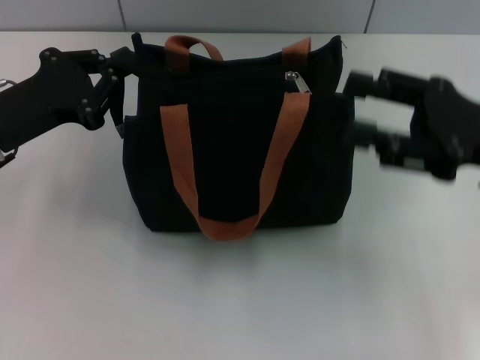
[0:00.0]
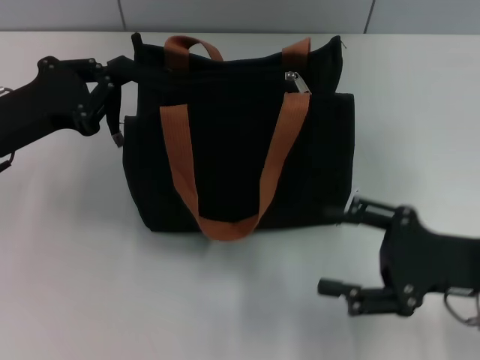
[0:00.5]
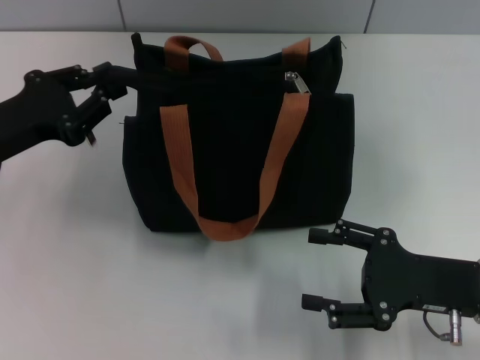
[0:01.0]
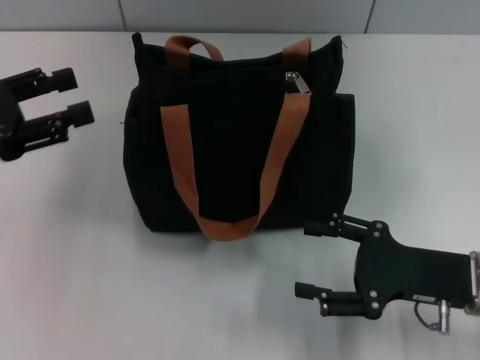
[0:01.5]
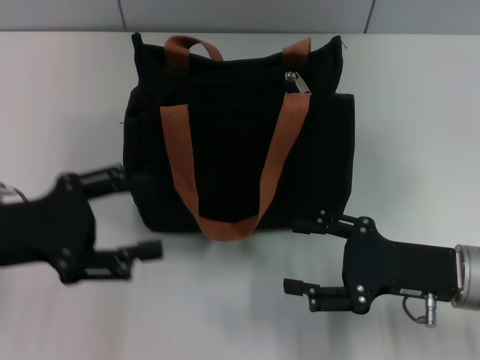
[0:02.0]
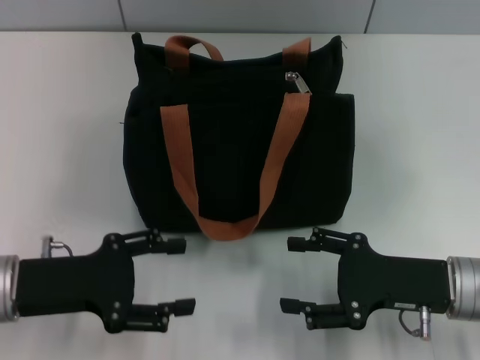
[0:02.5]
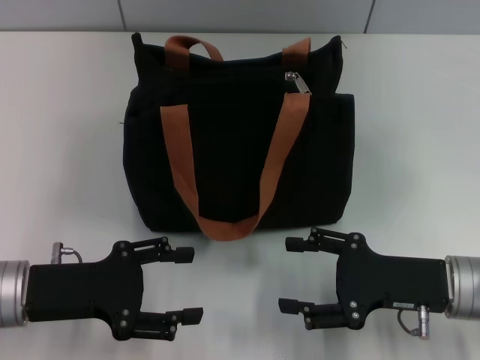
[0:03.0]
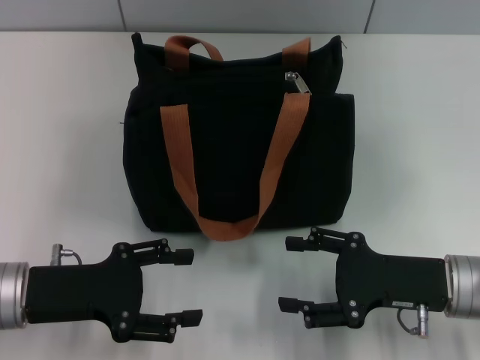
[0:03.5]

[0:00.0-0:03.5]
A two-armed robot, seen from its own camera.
Step, 0:00.0 to 0:01.0: Grab the zipper with your left hand.
0:00.0 to 0:02.0: The right gripper is displaced downward by approximately 10 cm, and opens. Meanwhile the left gripper is displaced backward by approximately 5 cm, and opens up.
0:02.0 to 0:03.5: The left gripper travels downward by some 5 cm.

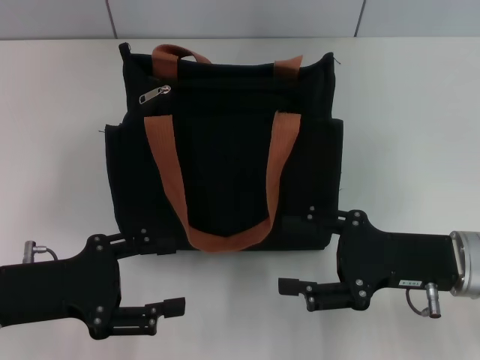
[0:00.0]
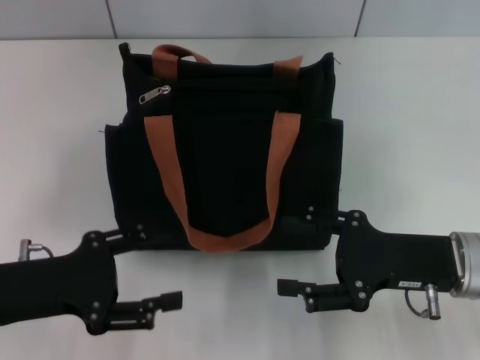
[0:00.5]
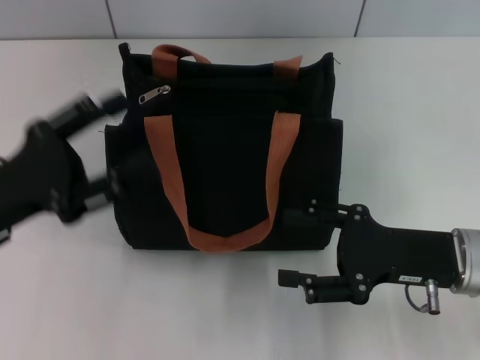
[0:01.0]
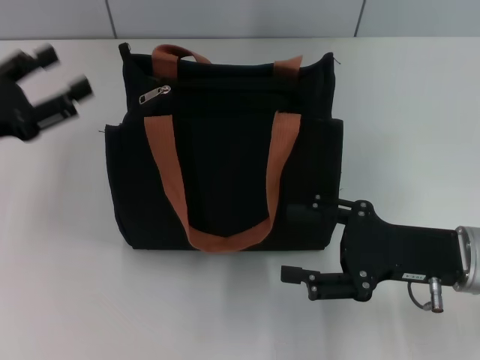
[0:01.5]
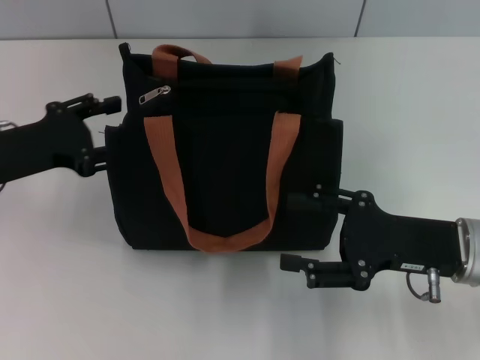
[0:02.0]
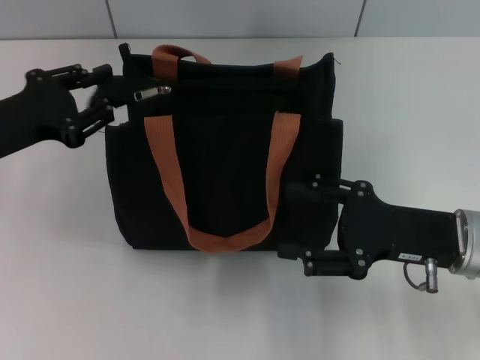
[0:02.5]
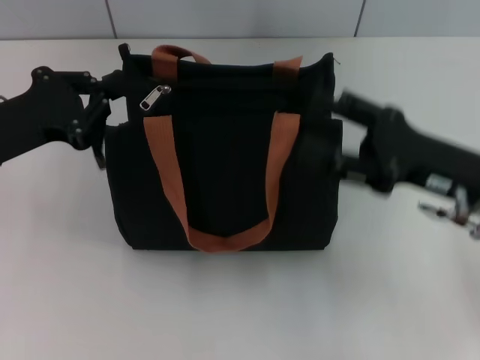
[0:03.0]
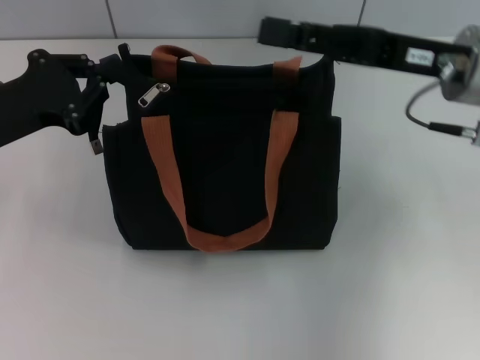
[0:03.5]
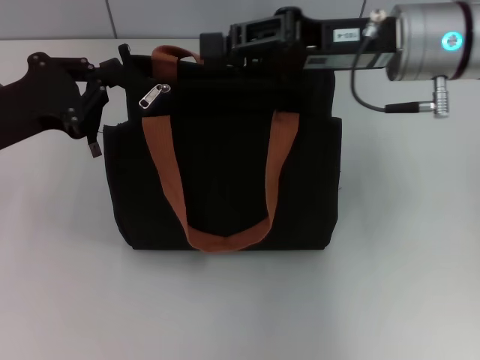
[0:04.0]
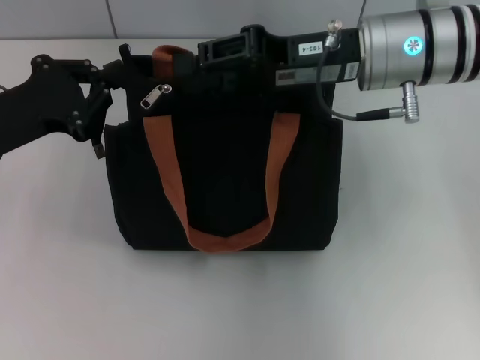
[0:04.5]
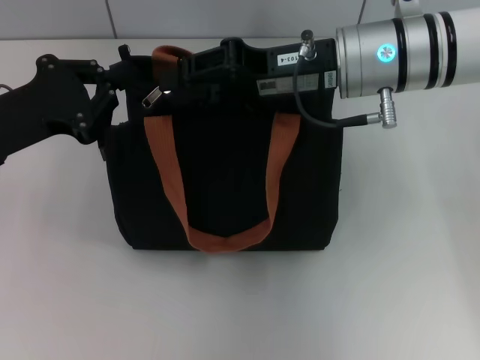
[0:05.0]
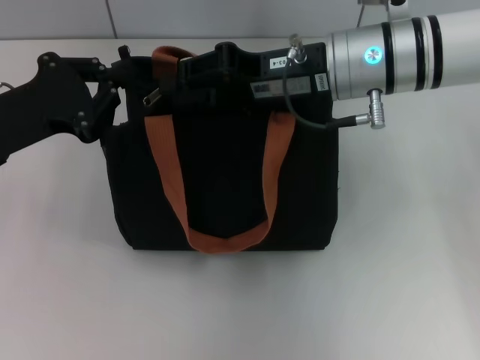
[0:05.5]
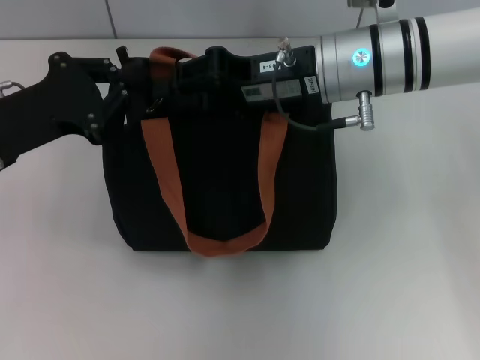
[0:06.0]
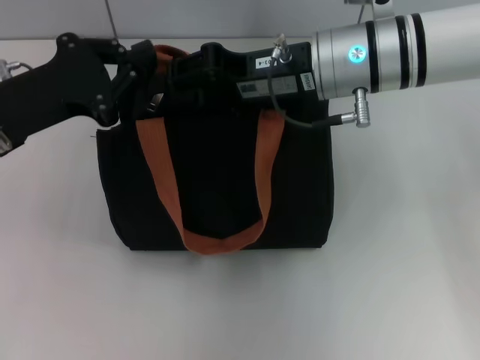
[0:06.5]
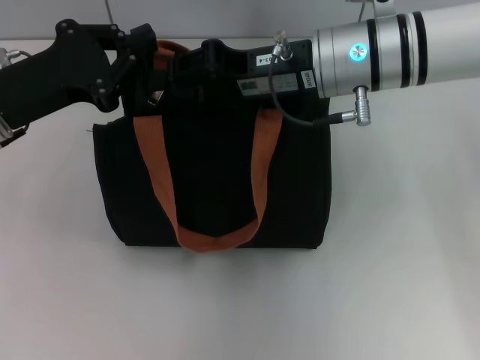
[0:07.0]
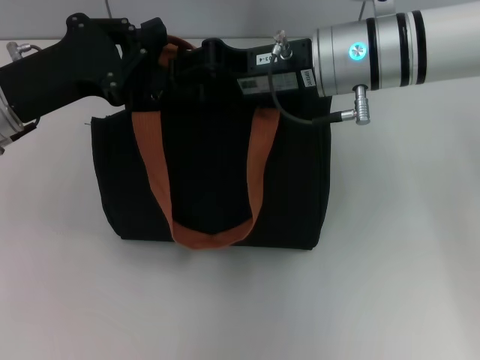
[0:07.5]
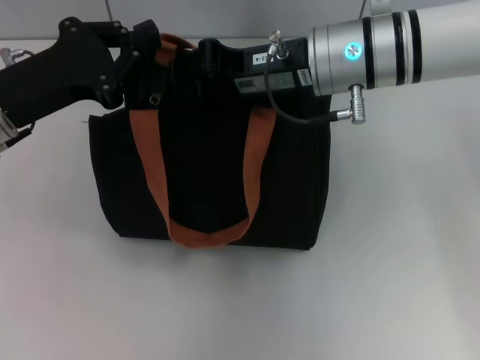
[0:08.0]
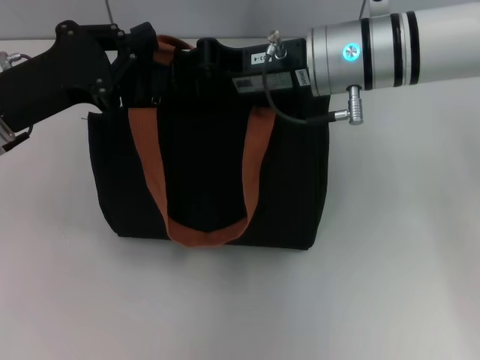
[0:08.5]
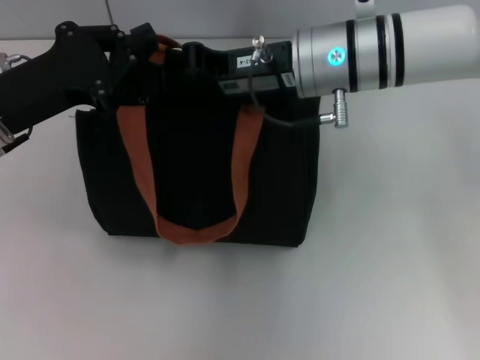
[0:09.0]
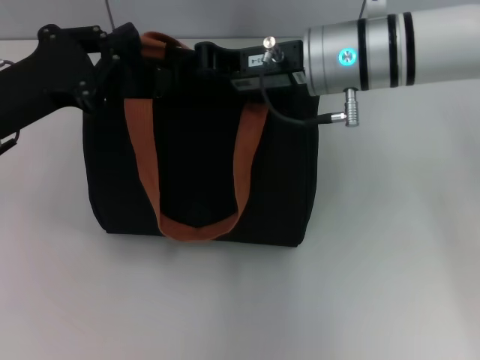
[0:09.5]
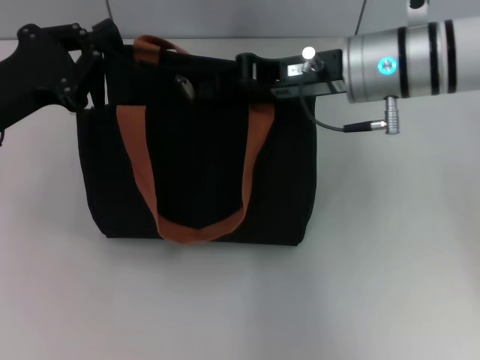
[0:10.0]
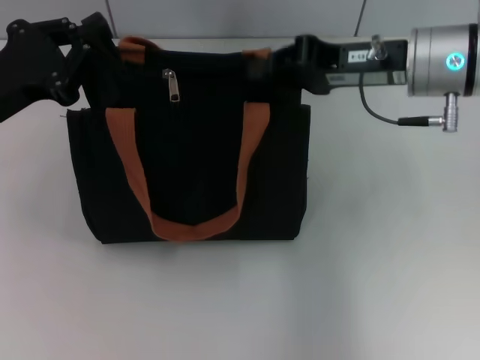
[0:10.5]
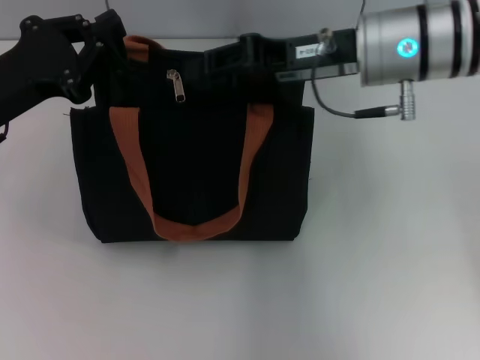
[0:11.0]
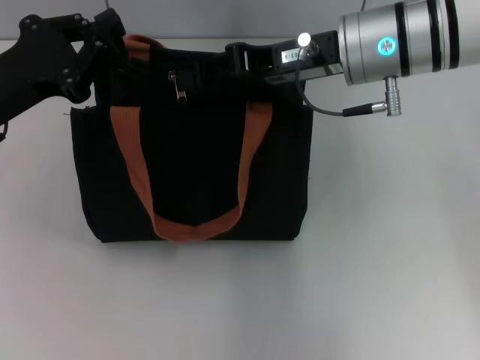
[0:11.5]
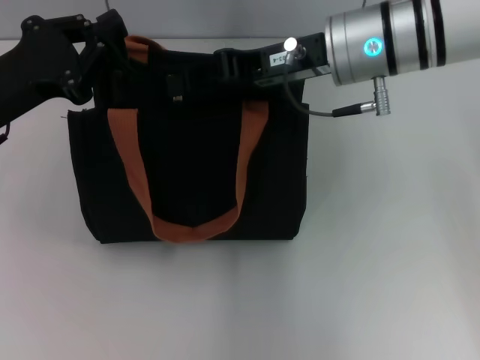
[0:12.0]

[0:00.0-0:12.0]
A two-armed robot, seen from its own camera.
0:00.0 to 0:02.0: The left gripper heads forward, covering approximately 10 cm.
0:02.0 to 0:04.0: The right gripper is displaced upward, forward and to the left by approximately 20 cm, and closes. The left gripper closes up.
0:04.0 to 0:06.0: The right gripper travels to the left by about 5 cm.
0:06.0 to 0:10.0: The grippers move only a little.
0:10.0 to 0:12.0: The right gripper opens.

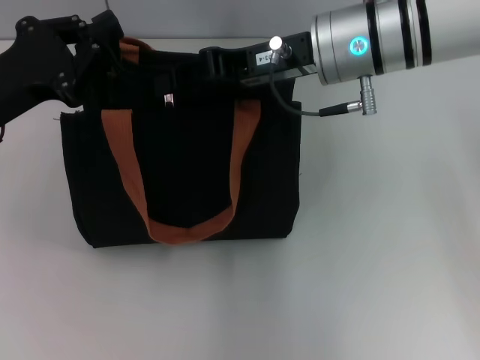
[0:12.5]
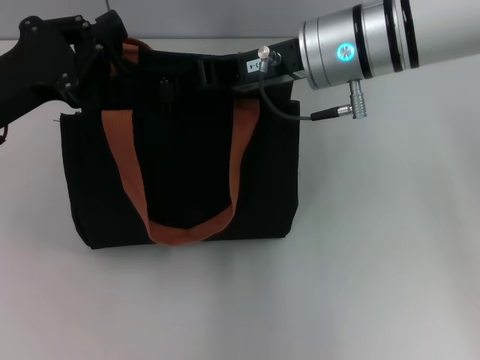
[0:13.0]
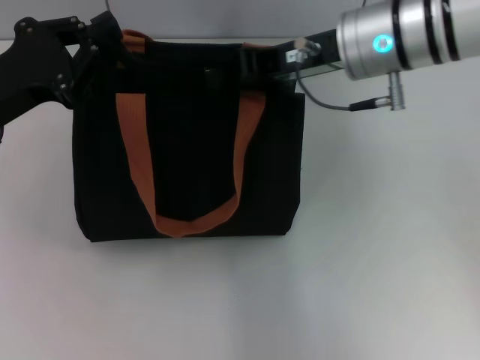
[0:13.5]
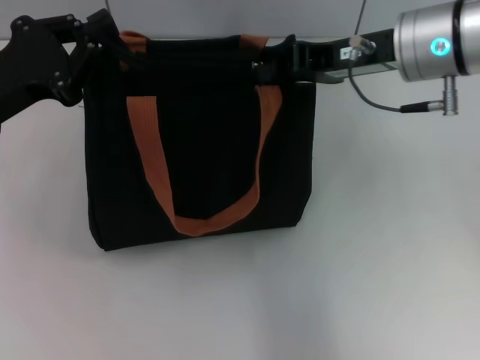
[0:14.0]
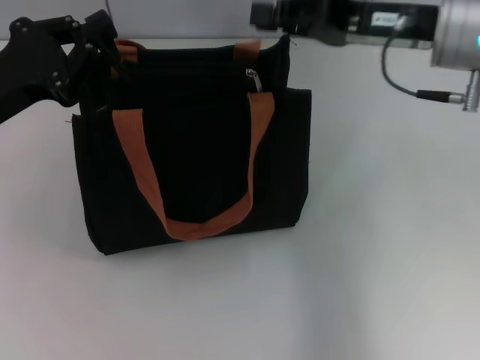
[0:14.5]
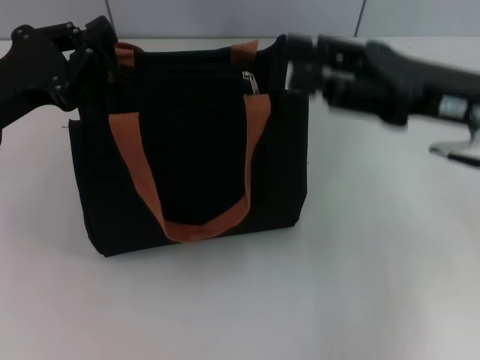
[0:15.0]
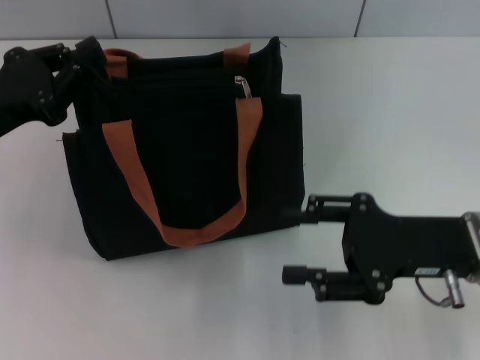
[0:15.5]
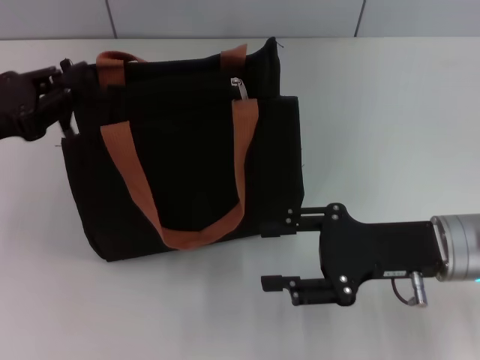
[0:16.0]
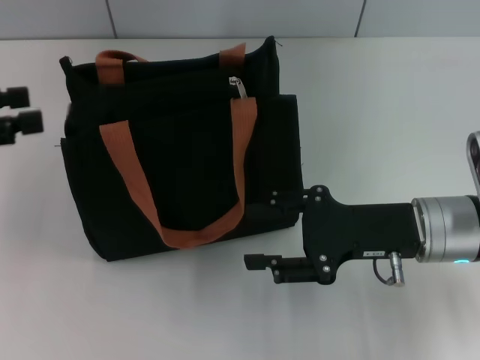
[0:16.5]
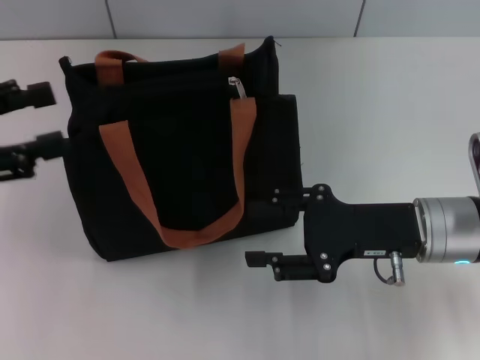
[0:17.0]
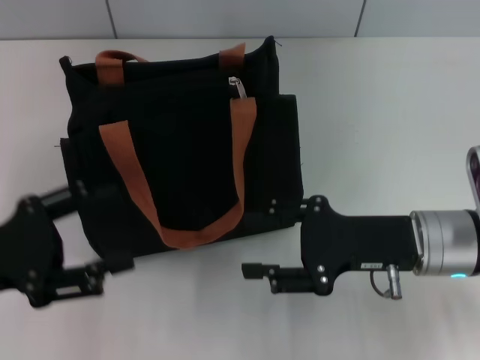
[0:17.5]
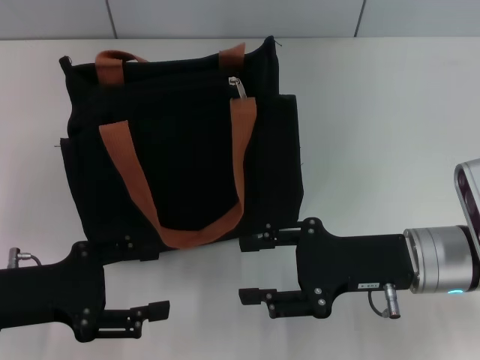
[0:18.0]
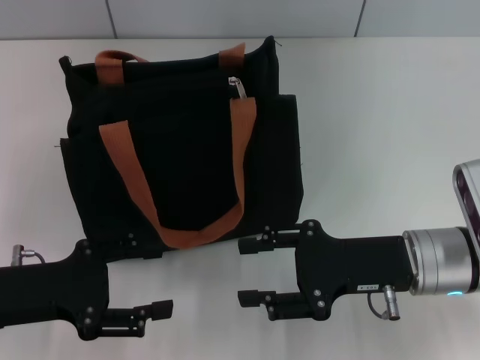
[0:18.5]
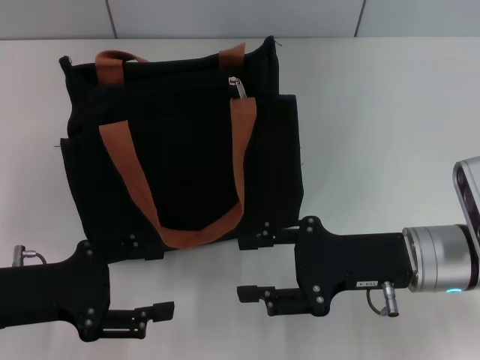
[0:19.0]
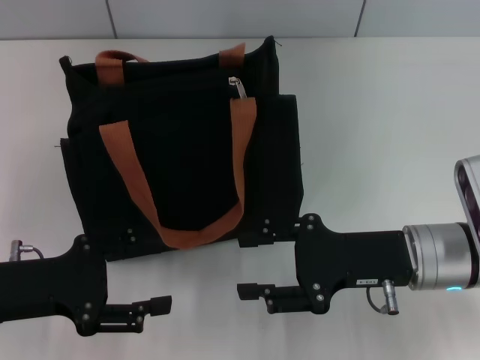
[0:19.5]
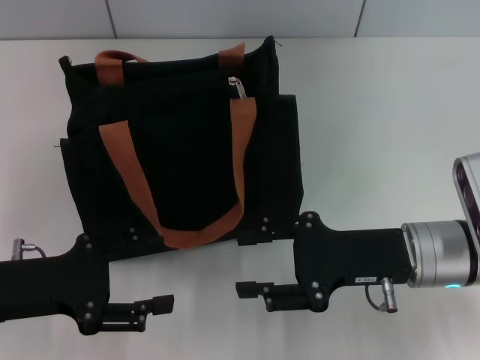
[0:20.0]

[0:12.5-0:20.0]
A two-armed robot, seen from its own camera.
Step, 0:14.5 to 0:16.5: Grab the zipper with your left hand.
0:12.5 to 0:14.5: The right gripper is displaced to the right by roughly 10 cm.
0:14.5 to 0:16.5: The left gripper moves to the left, about 10 cm, and opens; the right gripper is displaced downward and backward by about 15 cm, and opens up.
0:16.5 to 0:18.0: The left gripper shifts some 15 cm downward, to the right and backward.
0:18.0 to 0:20.0: Both grippers stay put.
